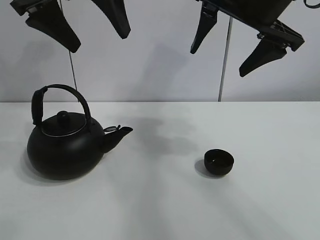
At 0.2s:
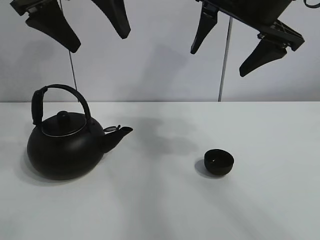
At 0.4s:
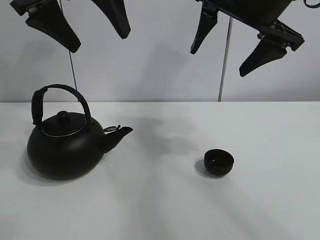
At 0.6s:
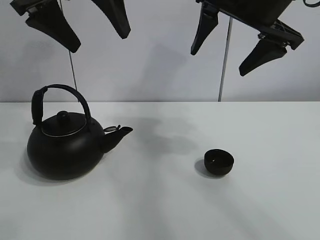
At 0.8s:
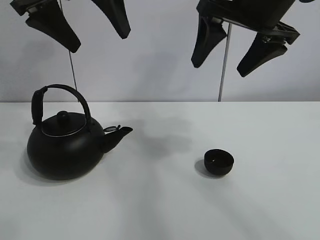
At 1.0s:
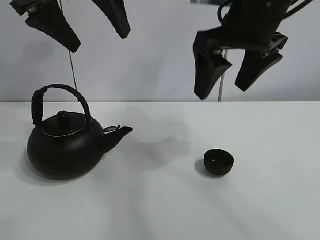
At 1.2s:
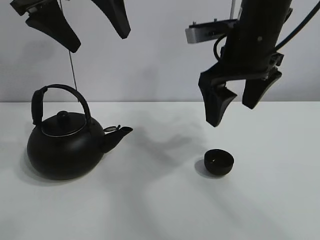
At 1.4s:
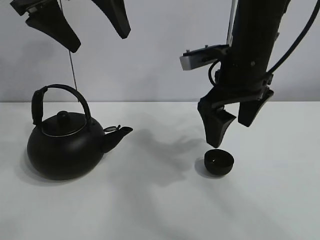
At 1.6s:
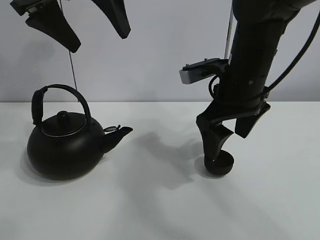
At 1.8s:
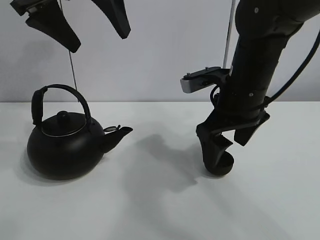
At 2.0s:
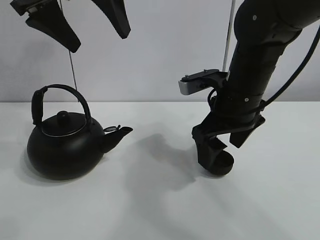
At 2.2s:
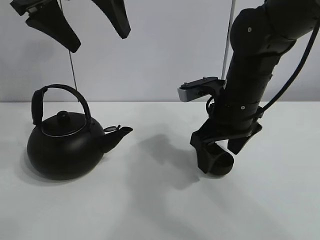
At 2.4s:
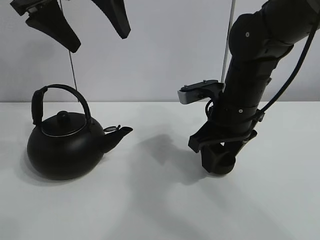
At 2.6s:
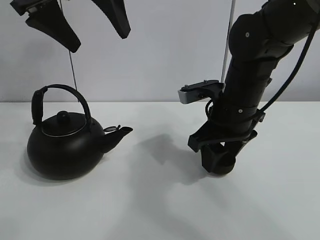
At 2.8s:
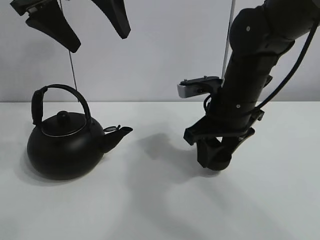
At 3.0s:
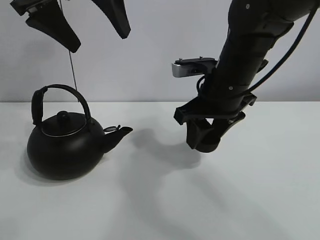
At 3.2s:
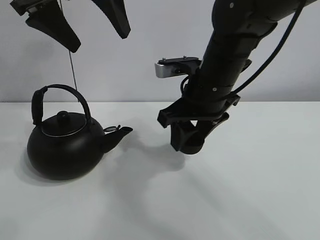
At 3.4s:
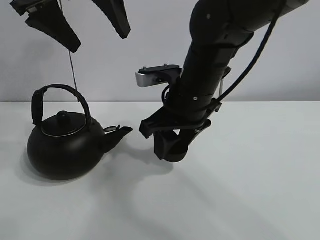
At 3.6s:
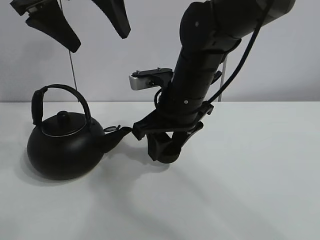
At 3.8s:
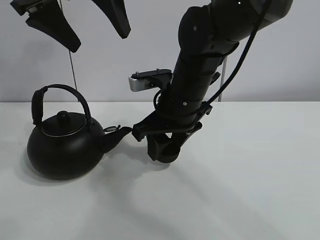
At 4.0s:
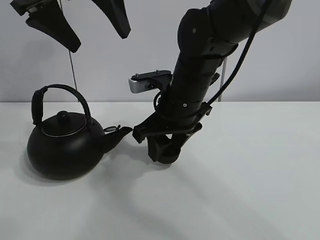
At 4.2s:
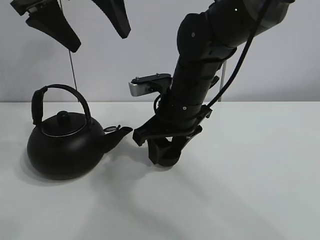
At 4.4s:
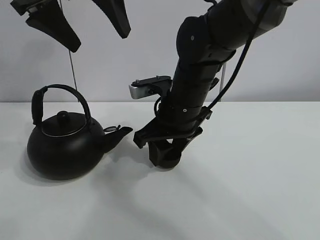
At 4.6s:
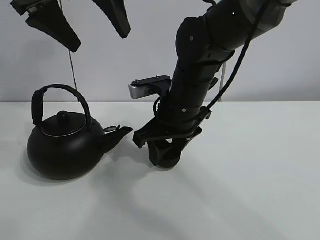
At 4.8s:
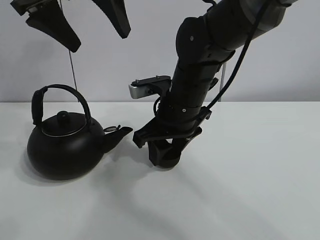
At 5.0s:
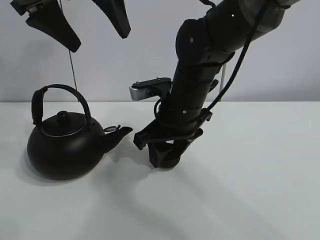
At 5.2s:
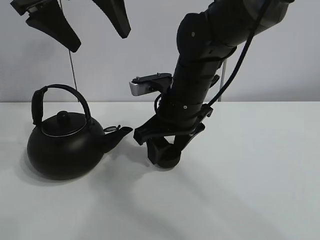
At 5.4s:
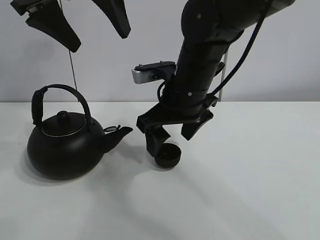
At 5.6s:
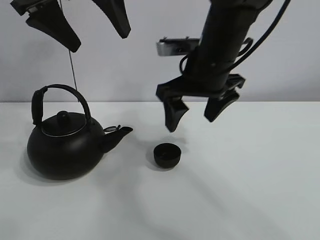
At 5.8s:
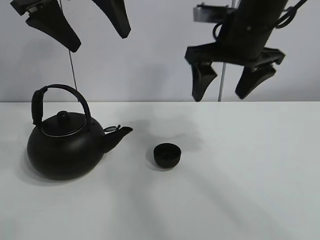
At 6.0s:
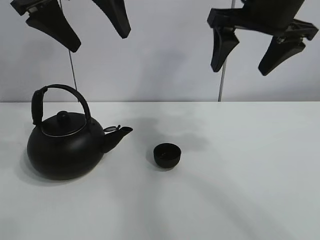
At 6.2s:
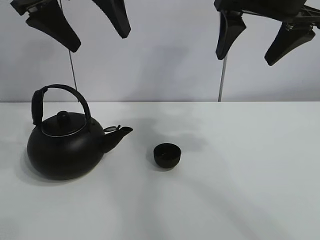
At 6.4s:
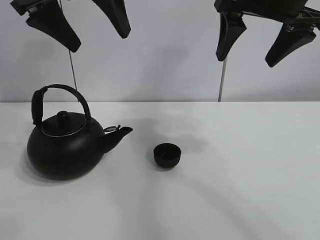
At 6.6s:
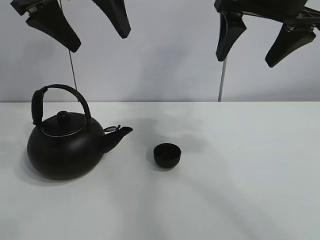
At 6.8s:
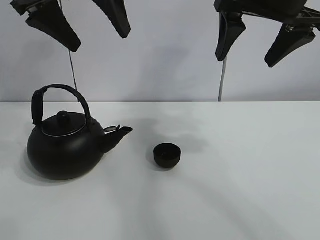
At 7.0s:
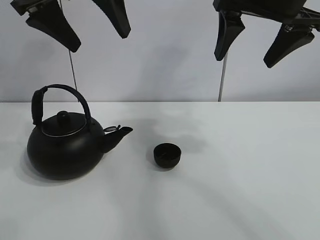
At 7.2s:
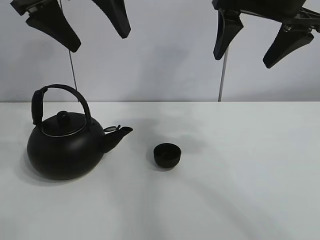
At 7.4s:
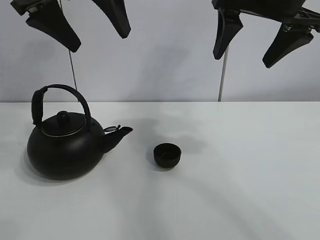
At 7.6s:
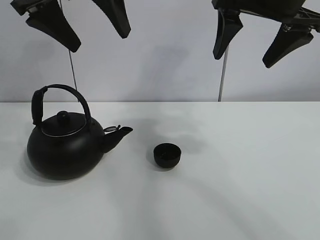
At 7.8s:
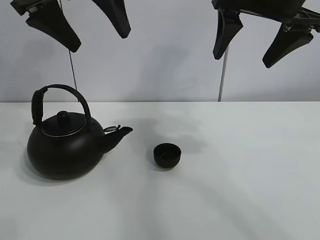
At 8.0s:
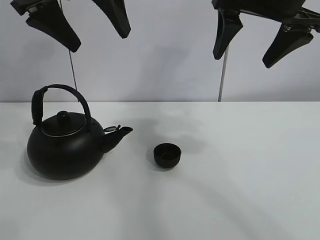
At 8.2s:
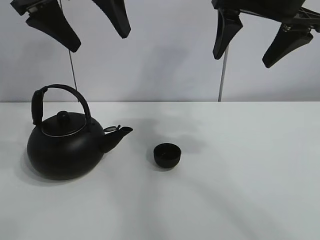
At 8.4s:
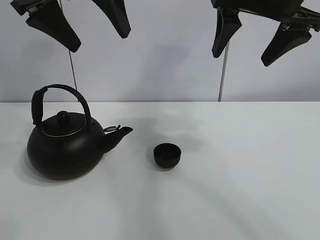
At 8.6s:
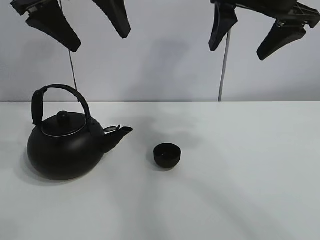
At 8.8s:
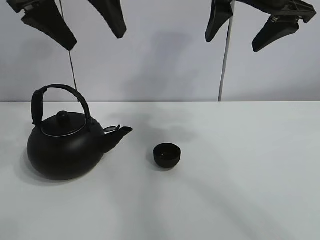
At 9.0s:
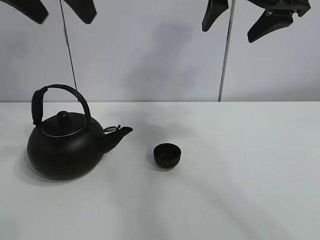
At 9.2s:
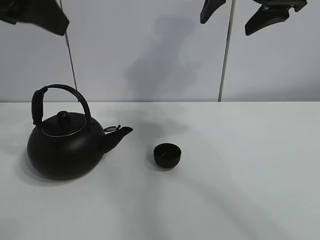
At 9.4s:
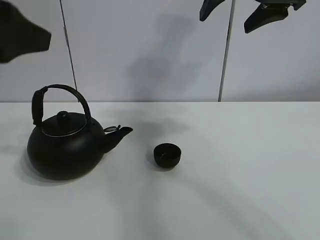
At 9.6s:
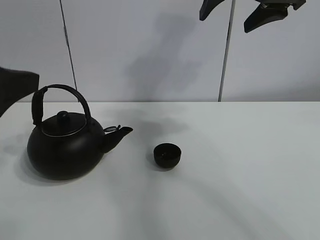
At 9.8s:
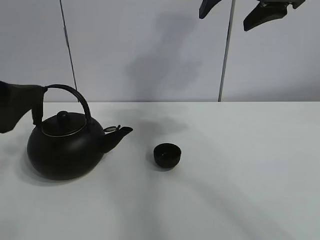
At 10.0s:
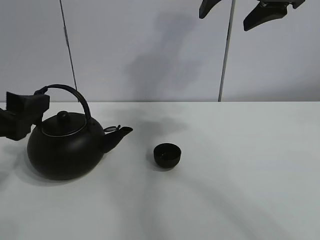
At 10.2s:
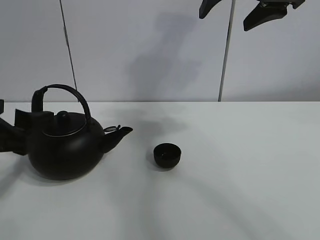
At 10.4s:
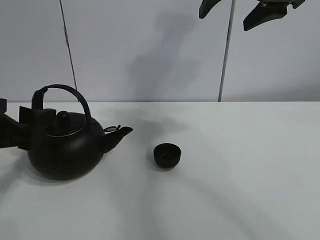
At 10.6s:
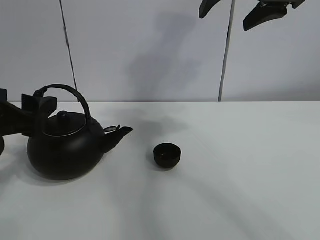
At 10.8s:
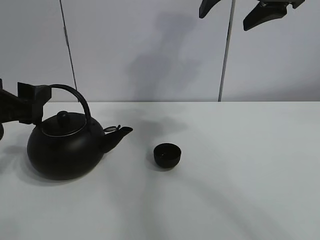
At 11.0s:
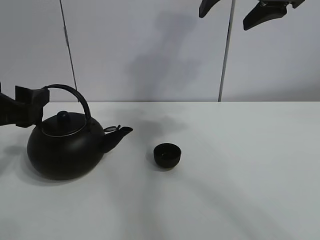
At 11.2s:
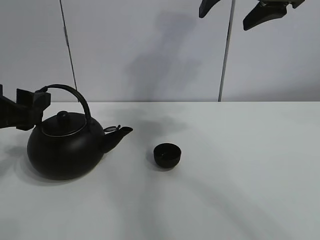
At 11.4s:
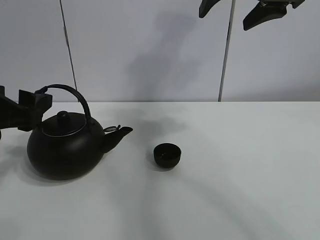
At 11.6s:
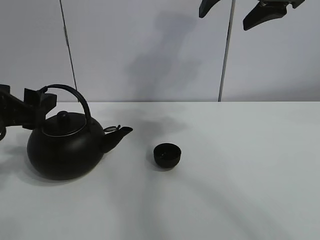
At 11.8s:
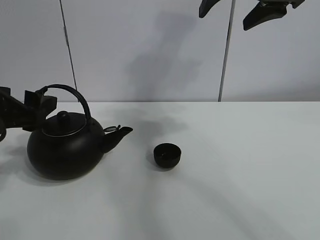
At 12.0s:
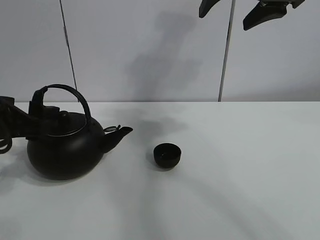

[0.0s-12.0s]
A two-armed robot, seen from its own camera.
Task of the whole recording: pour tea into the teacup.
Step, 0.0s to 2.2s: Pick up the teacup with the right gripper.
Step, 2.6s to 5.2s: Place the teacup in the center of view with the right gripper.
1.6s to 3.0s: The right gripper closes its fingers.
3.0s to 4.4s: The right gripper travels to the left by approximately 5 cm.
4.4s to 6.0s: The right gripper shifts roughly 20 cm upward and to the right, and opens up.
6.0s to 9.0s: There are only small adjustments of the grippers.
9.0s to 10.4s: The left gripper moves downward and backward, approximately 25 cm.
10.4s to 12.0s: The grippers stay close to where they were, moving slightly.

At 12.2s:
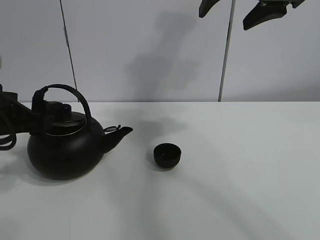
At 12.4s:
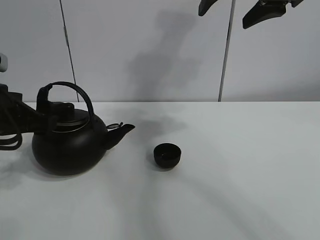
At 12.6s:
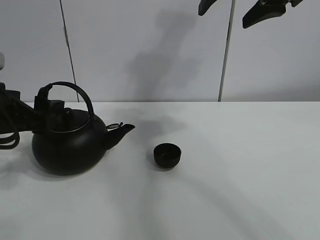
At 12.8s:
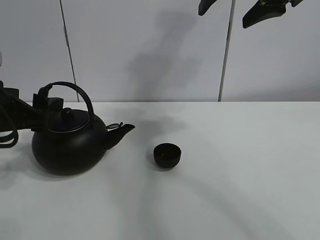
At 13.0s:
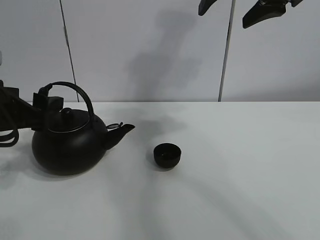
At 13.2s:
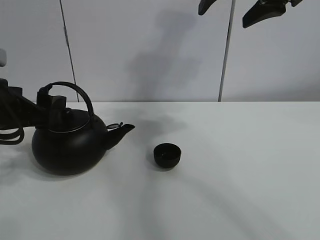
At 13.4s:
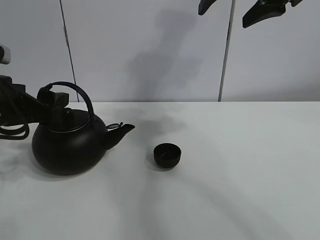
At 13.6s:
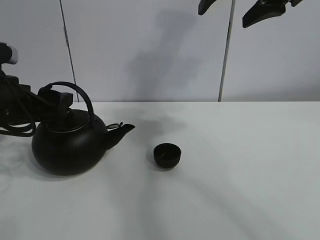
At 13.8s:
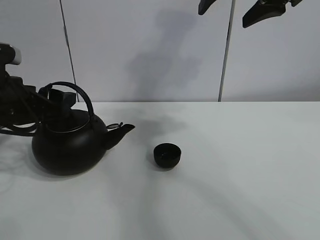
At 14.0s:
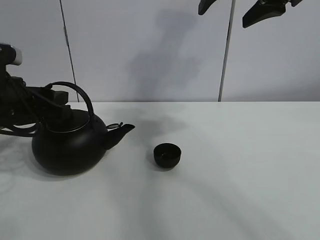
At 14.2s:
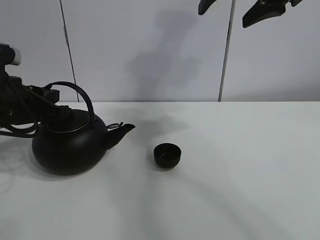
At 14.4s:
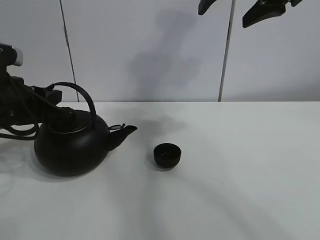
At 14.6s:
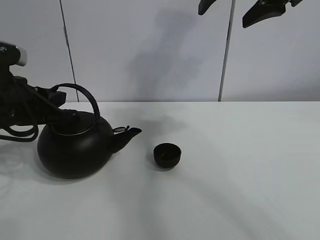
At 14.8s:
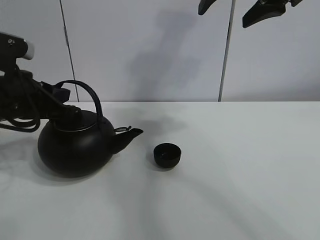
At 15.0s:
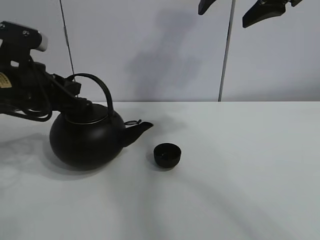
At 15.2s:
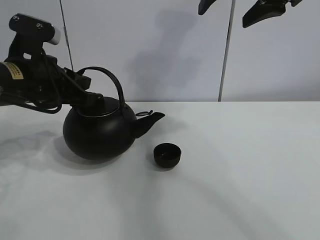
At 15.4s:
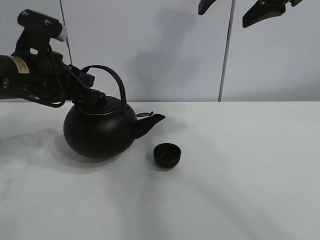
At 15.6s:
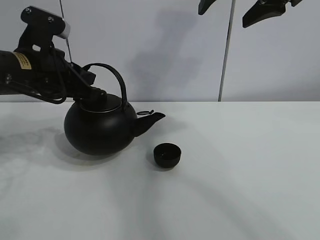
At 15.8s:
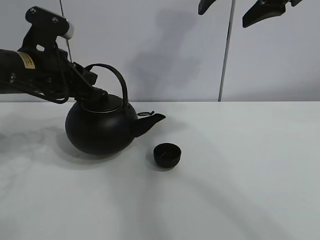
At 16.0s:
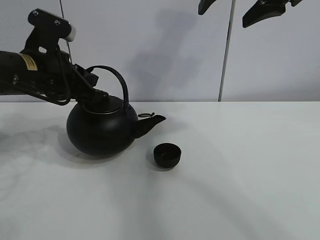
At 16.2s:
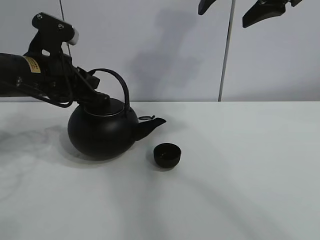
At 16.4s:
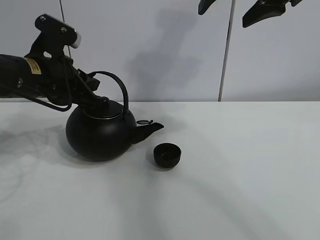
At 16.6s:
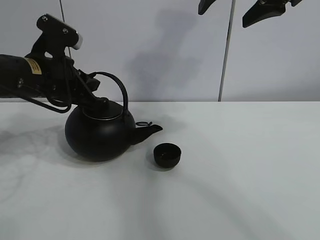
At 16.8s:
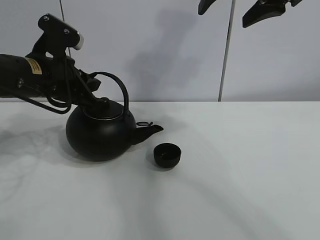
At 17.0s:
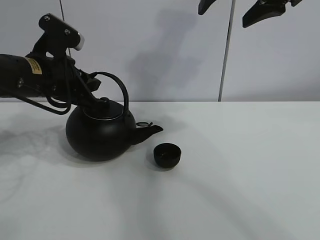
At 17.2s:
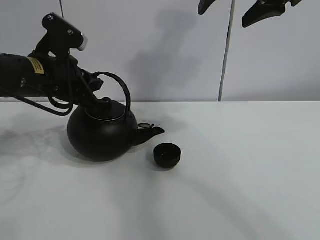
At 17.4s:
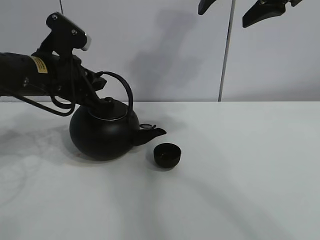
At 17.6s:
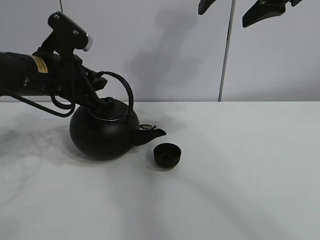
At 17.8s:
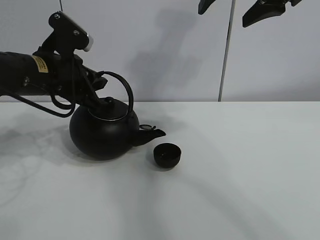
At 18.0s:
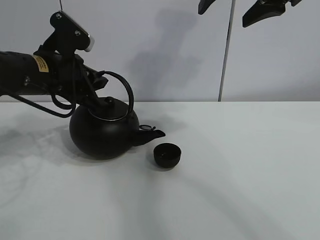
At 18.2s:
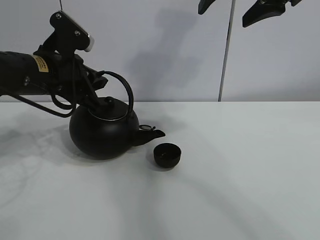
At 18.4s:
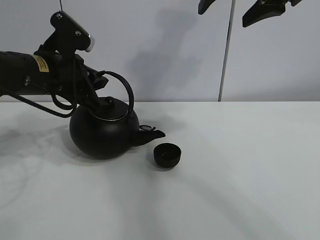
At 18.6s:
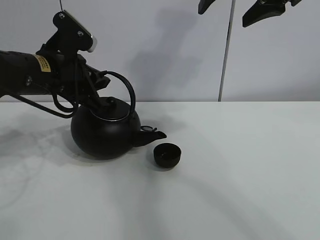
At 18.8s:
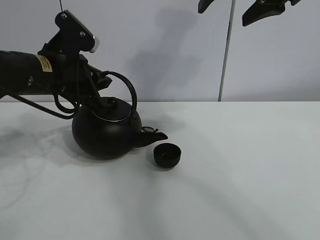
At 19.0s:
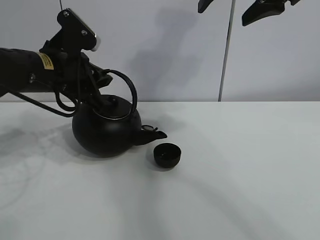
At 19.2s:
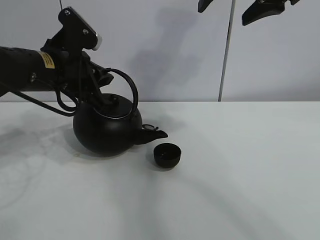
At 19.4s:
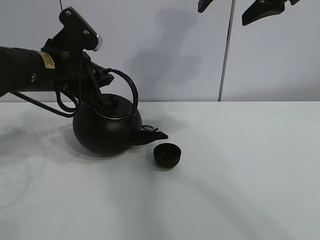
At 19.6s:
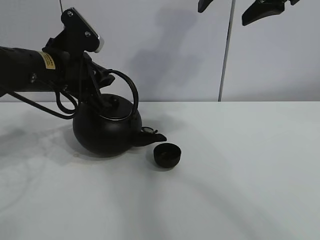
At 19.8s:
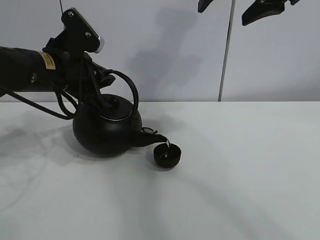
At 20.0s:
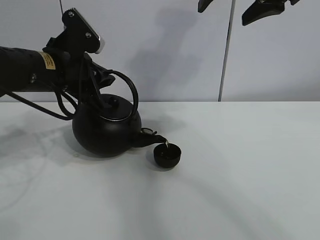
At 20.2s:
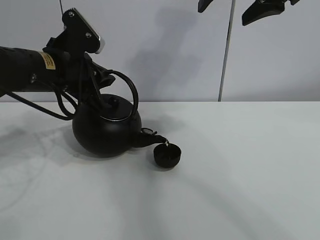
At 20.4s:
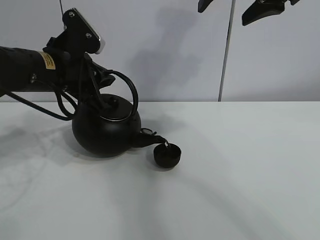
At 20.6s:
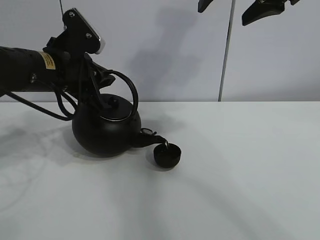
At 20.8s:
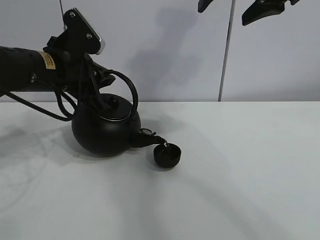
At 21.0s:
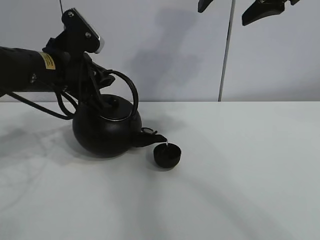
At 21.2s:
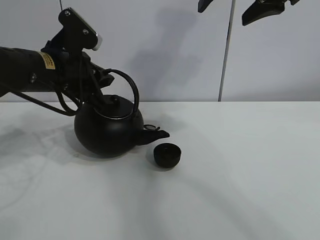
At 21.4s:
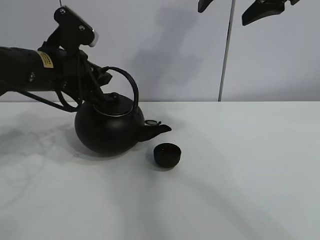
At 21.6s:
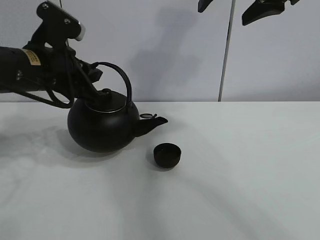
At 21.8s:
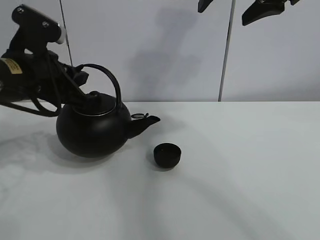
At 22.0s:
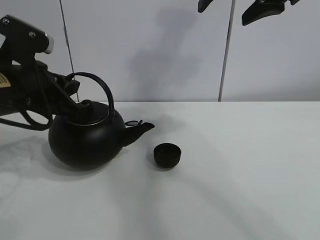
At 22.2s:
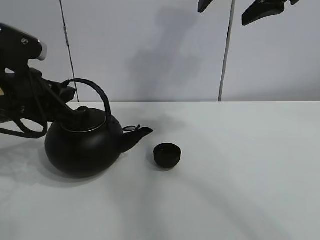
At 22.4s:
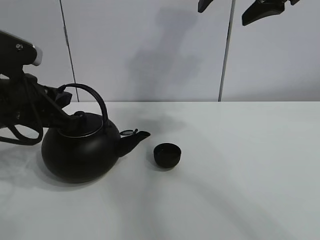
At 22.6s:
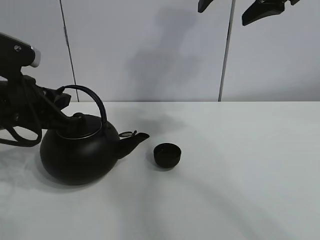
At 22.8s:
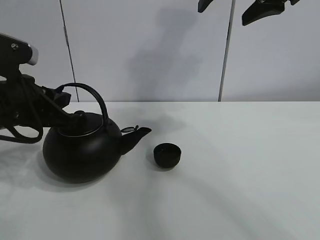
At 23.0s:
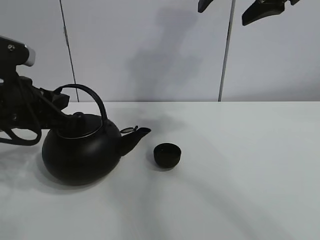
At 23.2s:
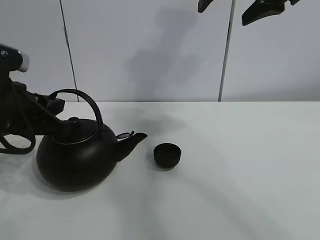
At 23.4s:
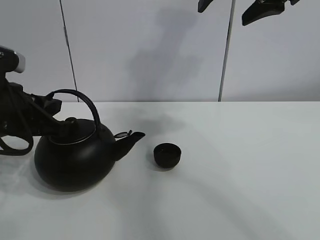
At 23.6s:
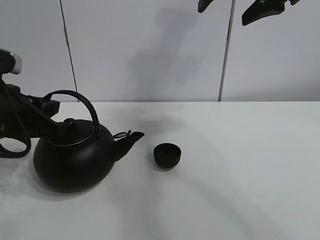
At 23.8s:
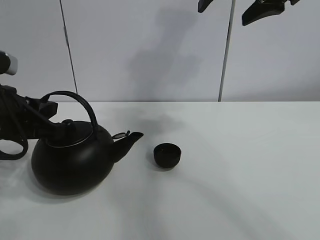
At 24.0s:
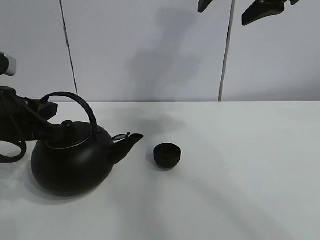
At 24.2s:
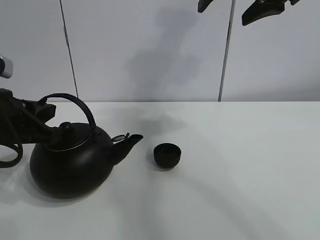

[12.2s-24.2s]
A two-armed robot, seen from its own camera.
Task of the whole recording: pour tea into the teacup.
Step, 12.2s to 14.4s: Pick up the teapot with the left gripper.
Step, 14.6s to 21.4s: Pour tea into the teacup with the left gripper.
12.2s to 13.8s: The grippers move only a little.
13.8s to 15.2s: The left gripper moves some 5 cm, and closes up.
15.2s to 18.2s: The grippers stay close to where they were, moving slightly.
18.2s to 19.8s: The grippers stay close to where they were, moving slightly.
19.8s to 21.2s: The two grippers keep their place.
21.2s to 22.6s: The left gripper shifts approximately 5 cm backward.
22.6s to 24.2s: The grippers move only a little.
